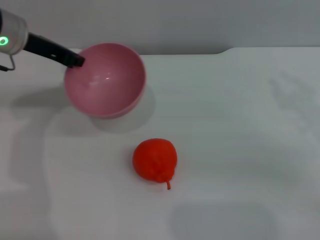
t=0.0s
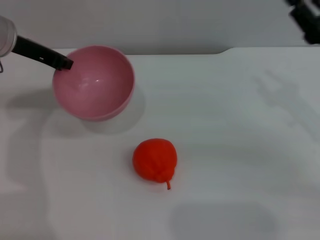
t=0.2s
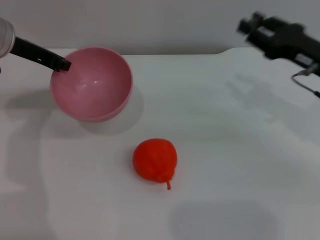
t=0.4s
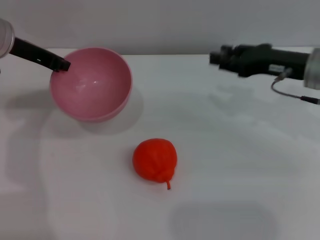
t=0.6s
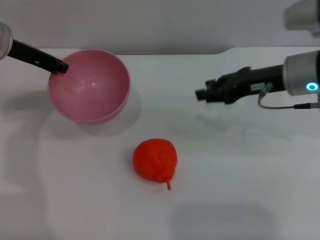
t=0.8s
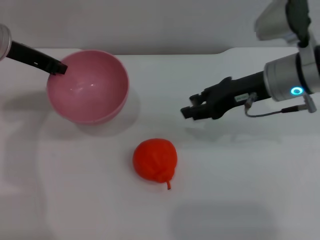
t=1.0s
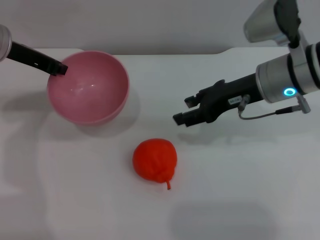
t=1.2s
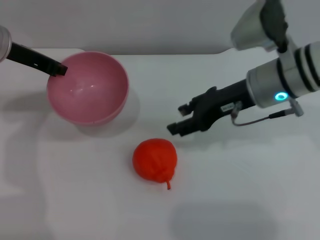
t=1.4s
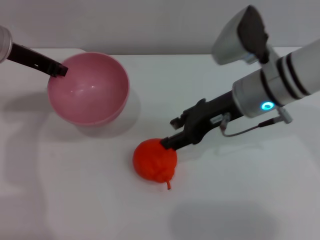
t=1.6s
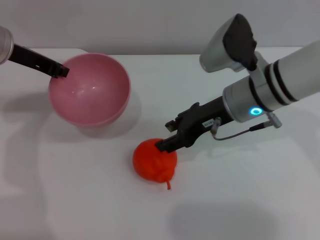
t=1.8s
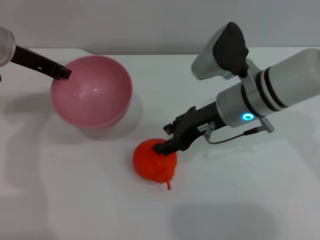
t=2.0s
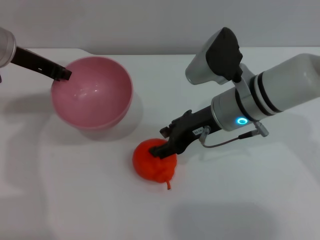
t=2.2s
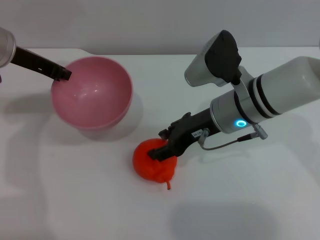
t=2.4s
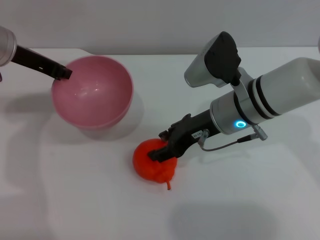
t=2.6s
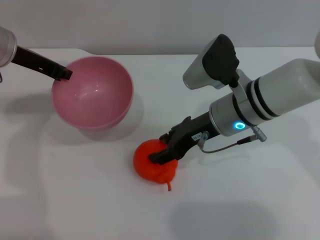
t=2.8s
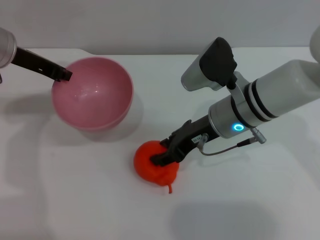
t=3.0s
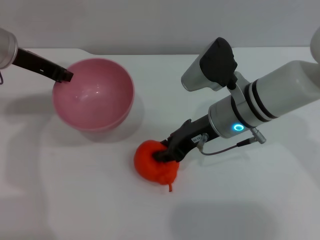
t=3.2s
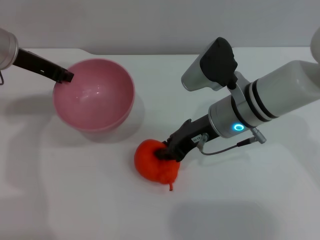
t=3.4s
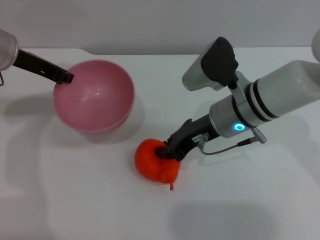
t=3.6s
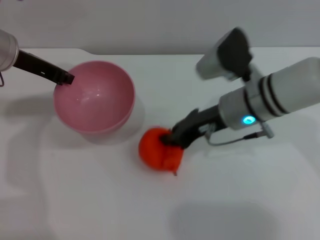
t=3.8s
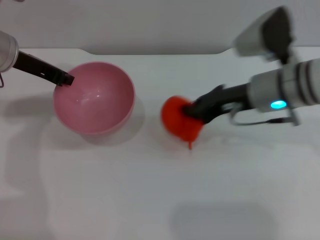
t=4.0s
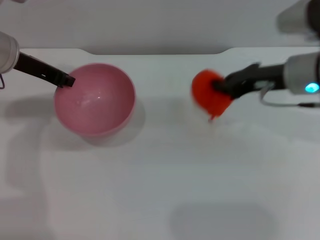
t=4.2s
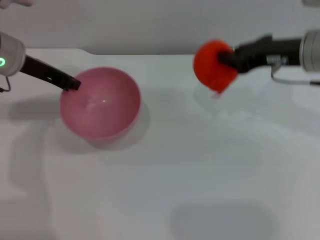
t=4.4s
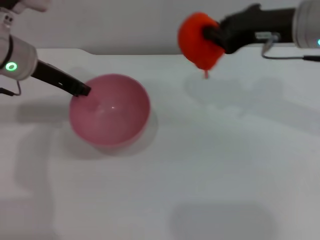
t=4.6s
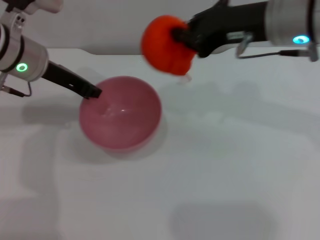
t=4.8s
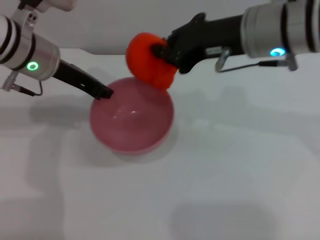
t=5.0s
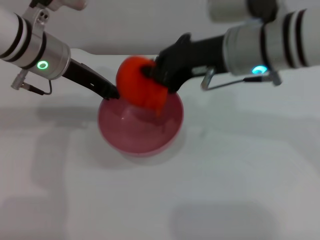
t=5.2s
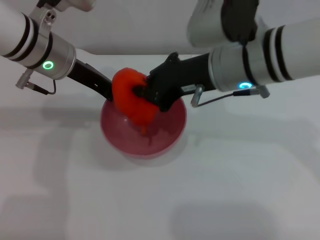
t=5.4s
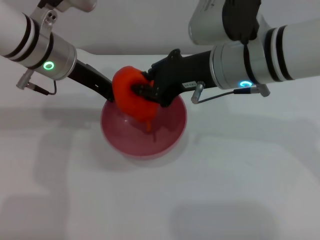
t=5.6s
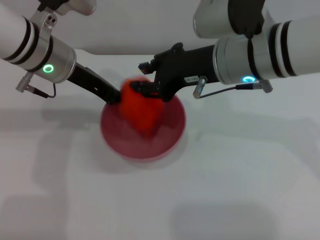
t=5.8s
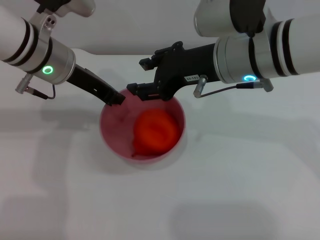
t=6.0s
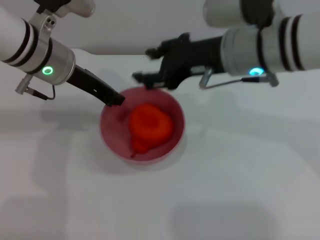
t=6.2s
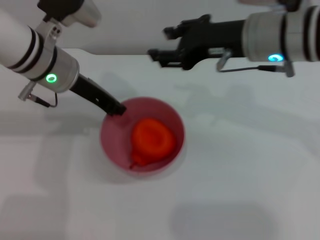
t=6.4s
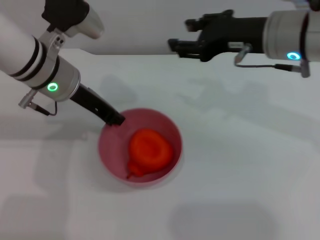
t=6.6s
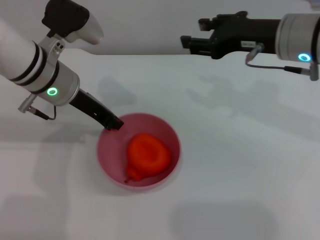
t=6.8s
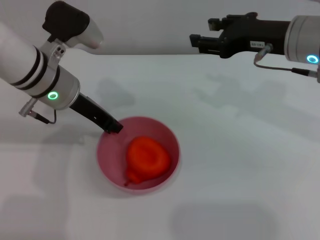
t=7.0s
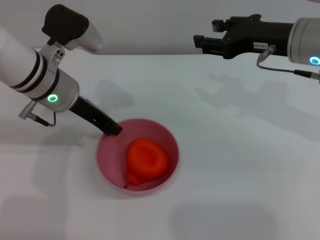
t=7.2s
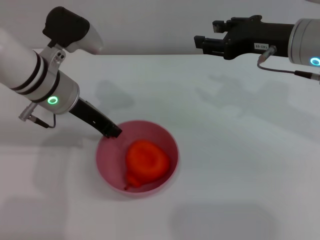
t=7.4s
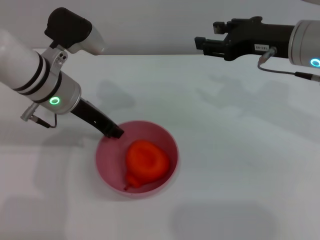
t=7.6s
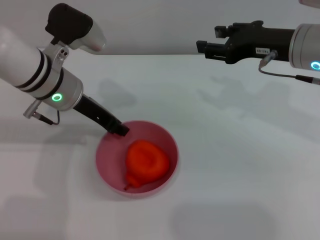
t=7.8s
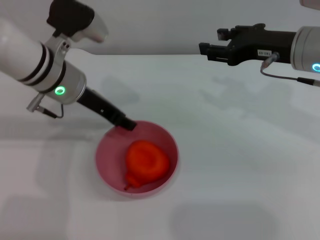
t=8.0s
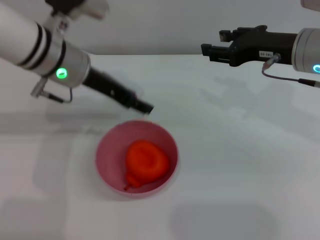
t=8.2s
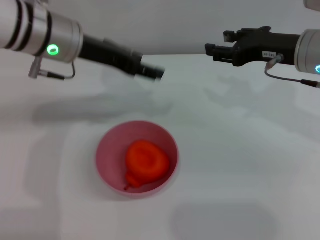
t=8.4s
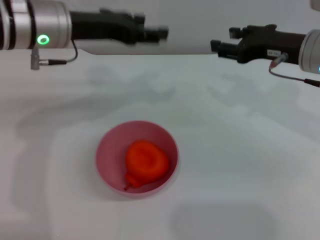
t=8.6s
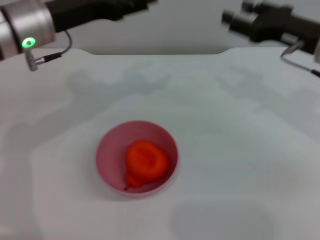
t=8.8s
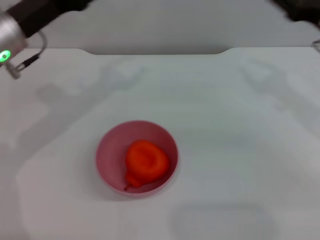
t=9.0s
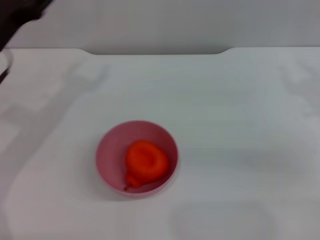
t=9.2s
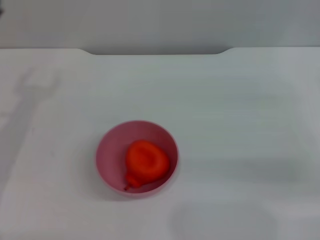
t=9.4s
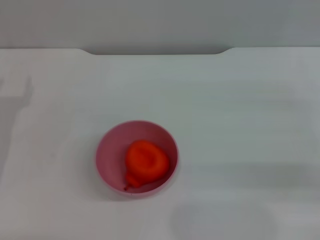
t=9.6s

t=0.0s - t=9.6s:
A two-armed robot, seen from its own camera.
Task of the whole recording: put the orange into the pink bowl and pour it out repeatedly.
Step, t=0.0s - t=3.8s: Pick up the orange with the right gripper.
Step, t=4.0s - t=6.0s: Place the orange into the bowl.
Step, t=6.4s - t=8.0s: Place the bowl on the table.
t=0.0s - t=1.6s: The right gripper travels to the left by some 15 cm.
t=1.6s - t=3.2s: The right gripper closes its fingers.
t=3.2s - t=4.8s: The right gripper shifts roughly 15 cm upward, and closes.
t=4.8s - t=6.4s: The right gripper opens up.
t=6.4s - t=8.0s: The right gripper shifts about 5 cm to the right. The left gripper opens its fingers.
t=8.0s - t=9.6s: The right gripper goes approximately 20 cm to the right, downward and backward, while the left gripper travels to the left, backward and downward by approximately 20 cm, and opens its fingers.

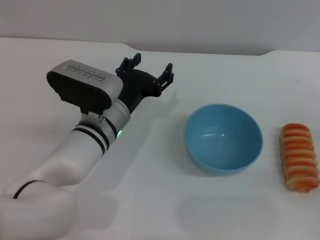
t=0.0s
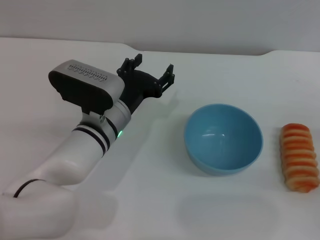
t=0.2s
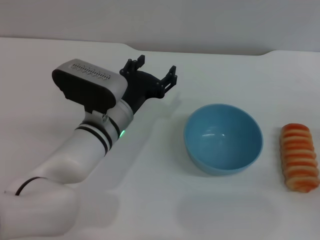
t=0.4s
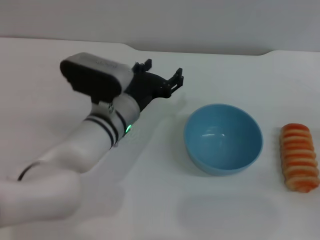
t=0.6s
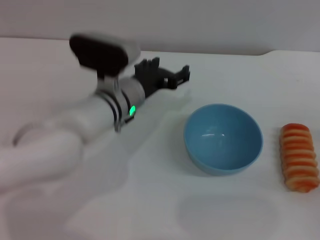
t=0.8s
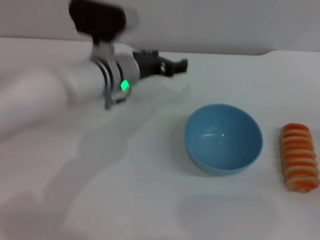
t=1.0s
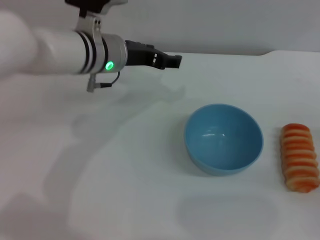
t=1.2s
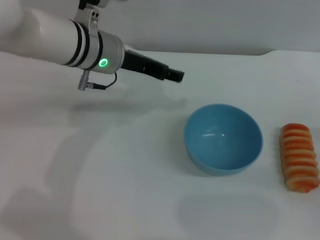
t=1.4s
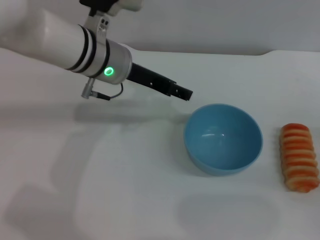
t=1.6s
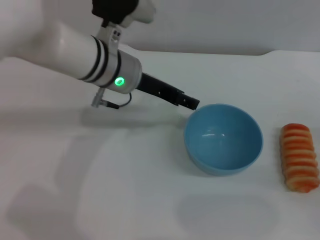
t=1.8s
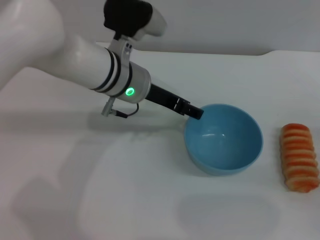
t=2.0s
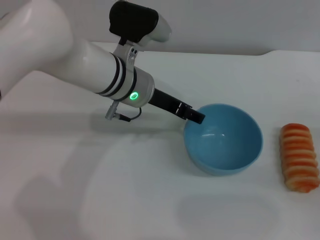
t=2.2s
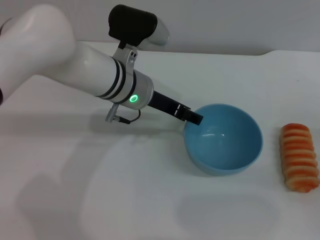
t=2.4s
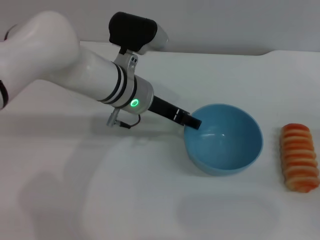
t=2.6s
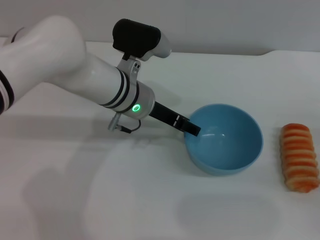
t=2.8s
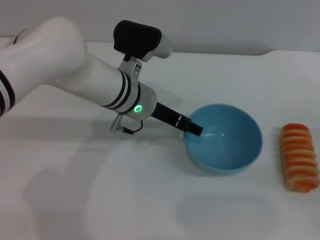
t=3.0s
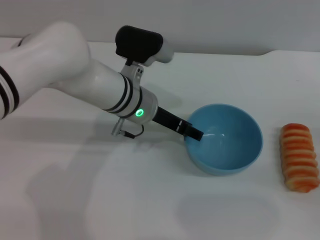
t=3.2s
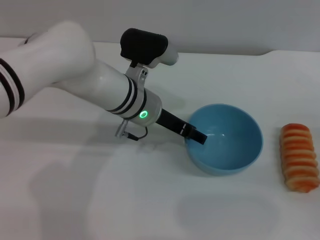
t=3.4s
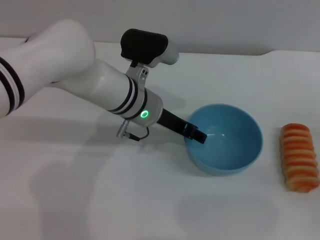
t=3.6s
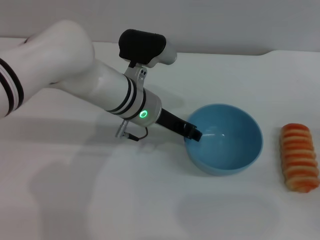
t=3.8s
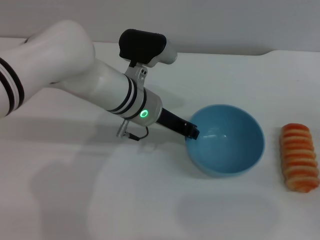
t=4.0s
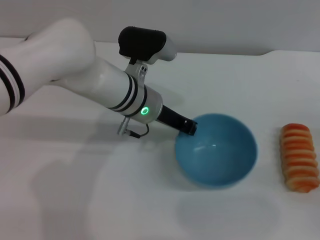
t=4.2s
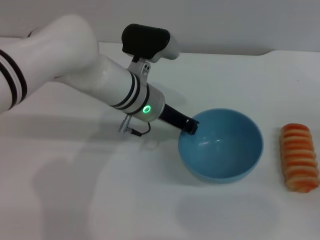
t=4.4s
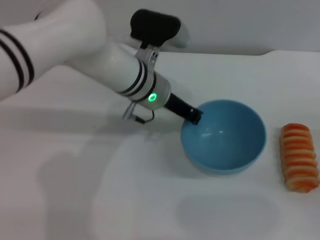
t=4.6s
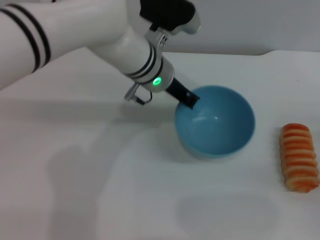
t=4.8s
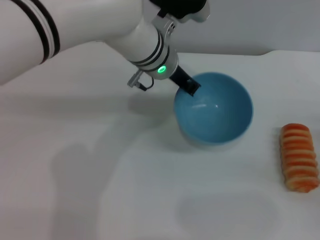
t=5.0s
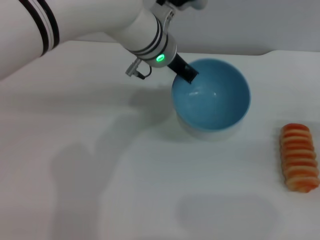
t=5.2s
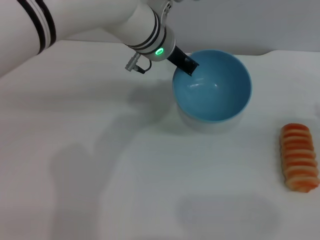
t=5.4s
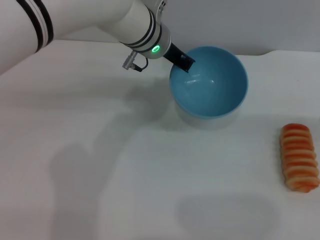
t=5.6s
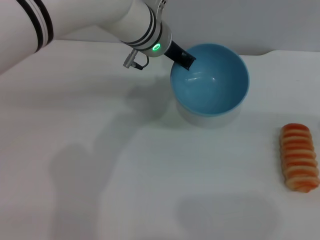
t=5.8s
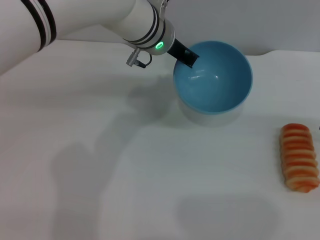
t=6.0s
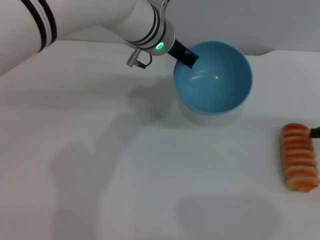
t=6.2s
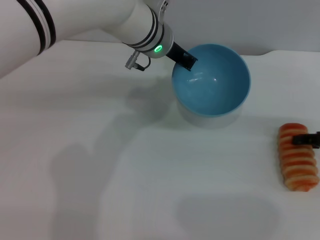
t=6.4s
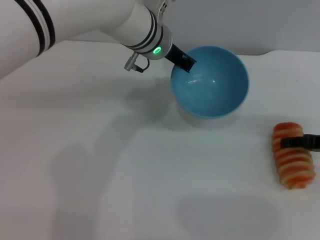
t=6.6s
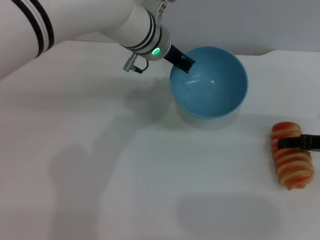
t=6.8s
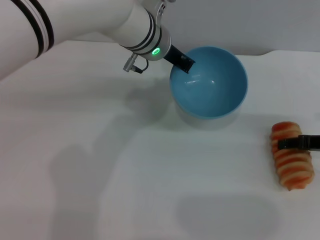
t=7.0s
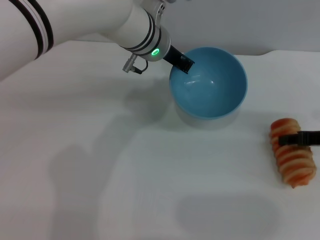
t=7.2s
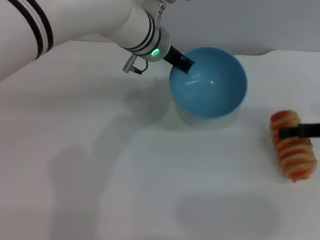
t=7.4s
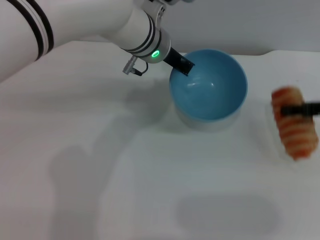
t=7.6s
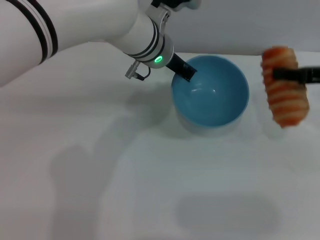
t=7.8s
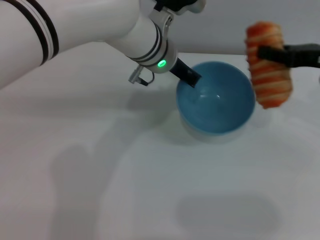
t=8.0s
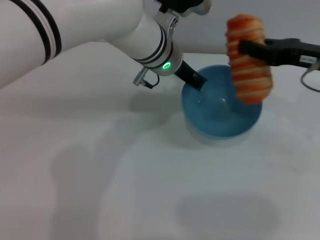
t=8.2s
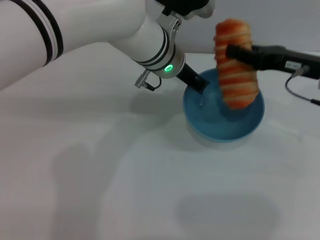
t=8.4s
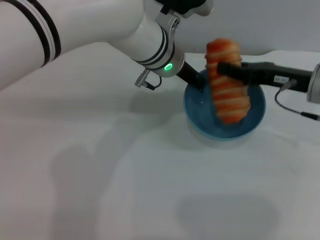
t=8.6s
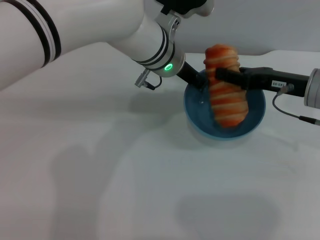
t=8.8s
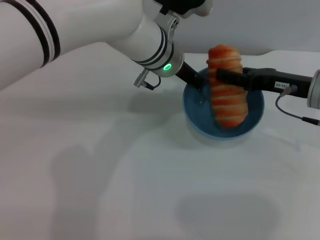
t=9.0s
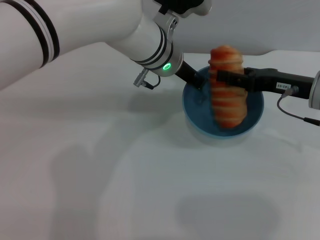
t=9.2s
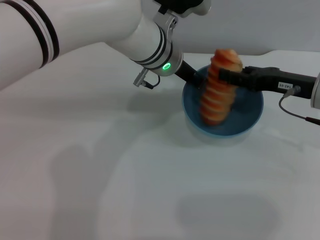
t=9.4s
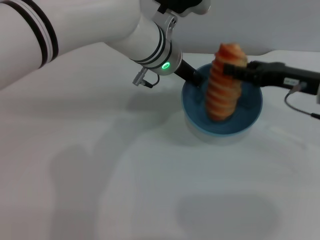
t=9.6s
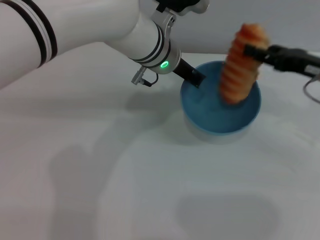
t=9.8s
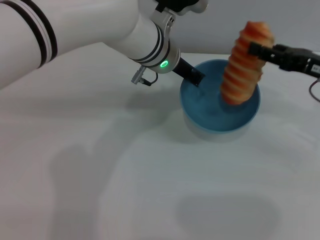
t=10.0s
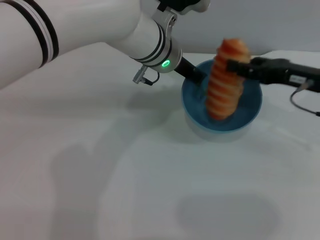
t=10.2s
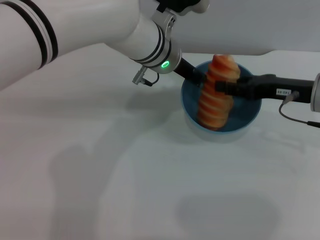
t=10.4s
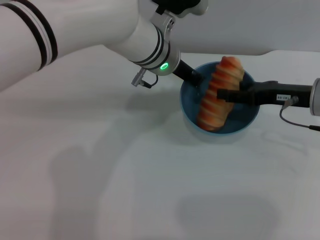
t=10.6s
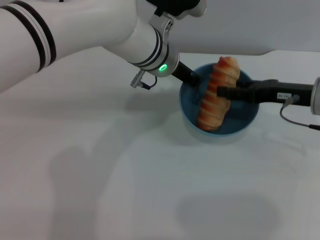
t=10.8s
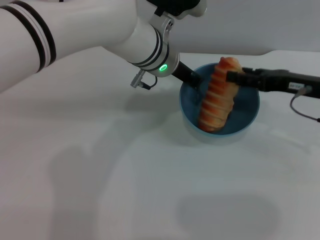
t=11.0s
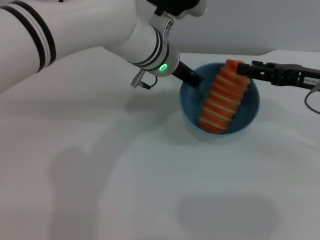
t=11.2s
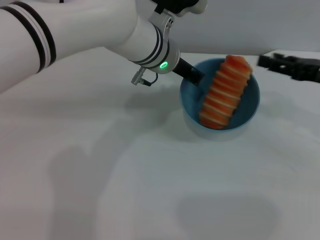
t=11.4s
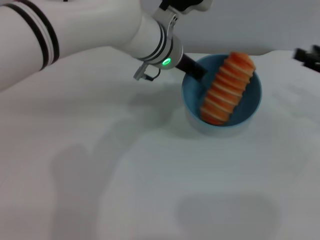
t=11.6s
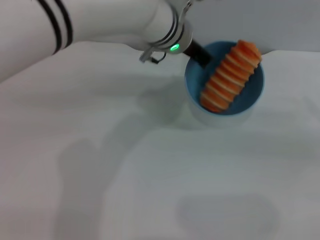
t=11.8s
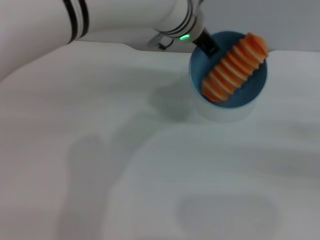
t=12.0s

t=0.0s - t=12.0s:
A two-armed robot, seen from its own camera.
Task of the whole recording: put the bread into the blue bowl and pour it out repeatedly.
Step, t=0.0s - t=4.8s: Pick up the bowl with the left gripper.
Step, t=5.0s - t=7.6s: Pick up the bread with the right gripper.
Step, t=7.8s - t=11.2s: Place the bread into the bowl.
t=0.0s - t=1.6s: The left gripper is displaced upward and forward by some 15 cm.
t=1.6s - t=3.0s: The left gripper travels downward by approximately 5 cm.
t=3.0s - t=4.4s: The left gripper closes up.
t=4.4s - t=6.0s: Both grippers travel together upward and forward, approximately 10 cm.
t=6.0s - t=7.6s: The right gripper shifts roughly 5 cm to the left, and closes up.
t=7.6s - t=9.0s: The right gripper travels to the left by some 5 cm.
t=9.0s - t=10.4s: The right gripper opens.
t=10.4s - t=12.0s: The left gripper moves approximately 5 cm; the right gripper heads to the right and backward, covering some 20 cm.
